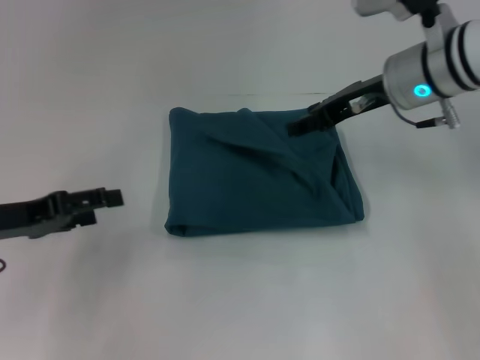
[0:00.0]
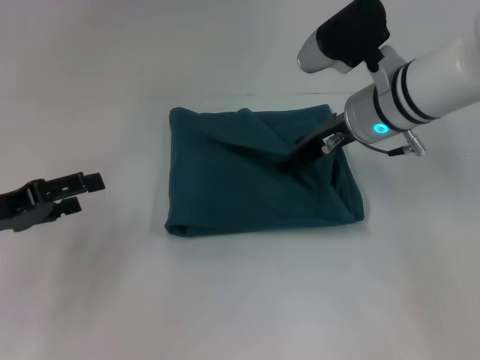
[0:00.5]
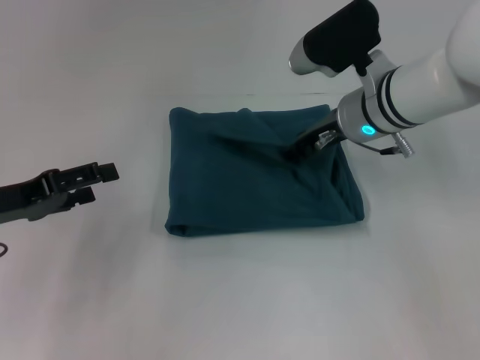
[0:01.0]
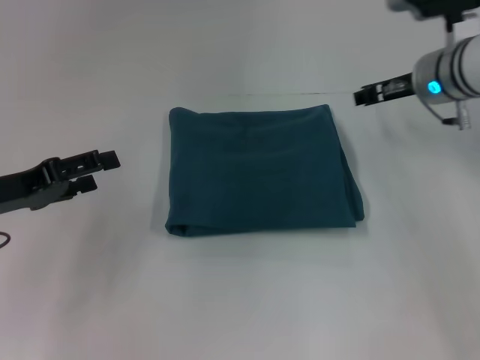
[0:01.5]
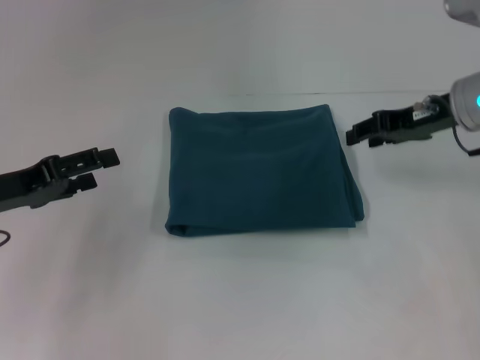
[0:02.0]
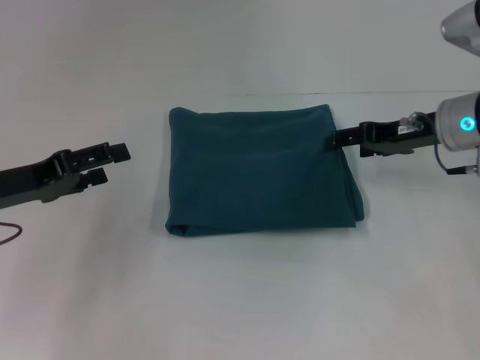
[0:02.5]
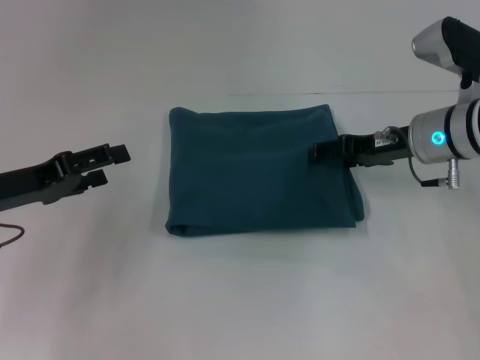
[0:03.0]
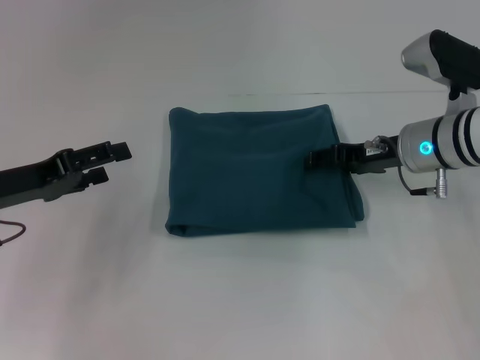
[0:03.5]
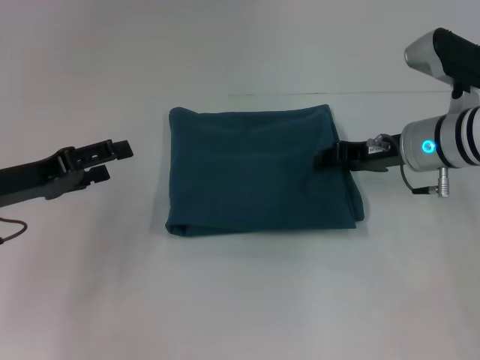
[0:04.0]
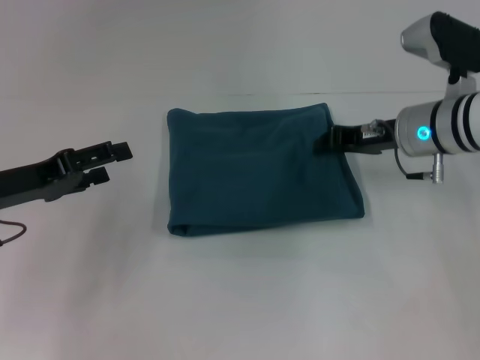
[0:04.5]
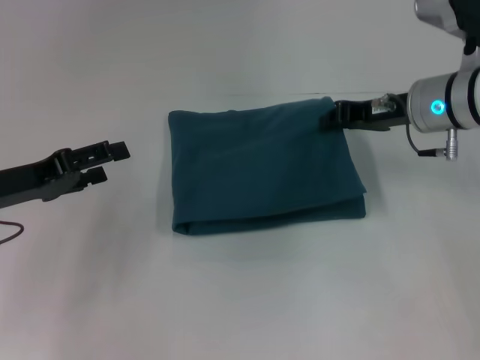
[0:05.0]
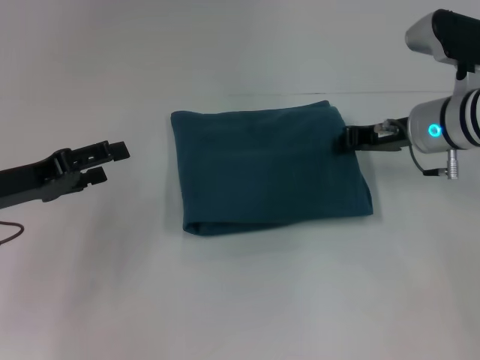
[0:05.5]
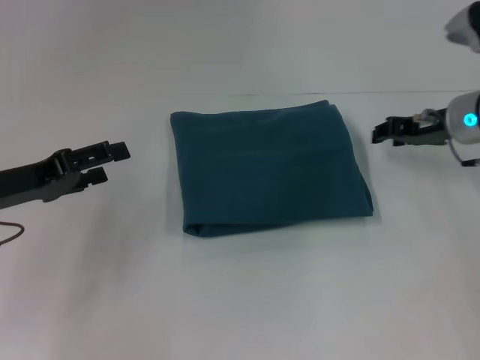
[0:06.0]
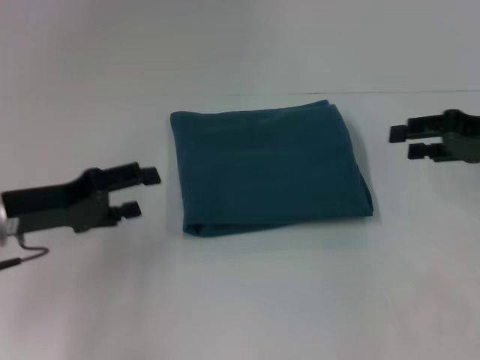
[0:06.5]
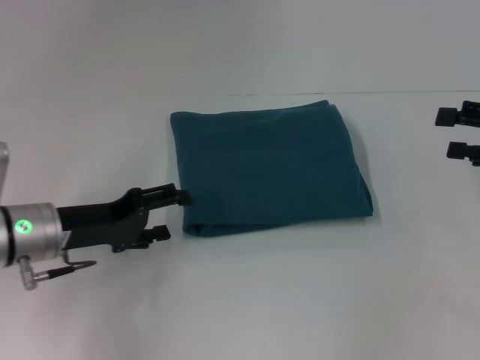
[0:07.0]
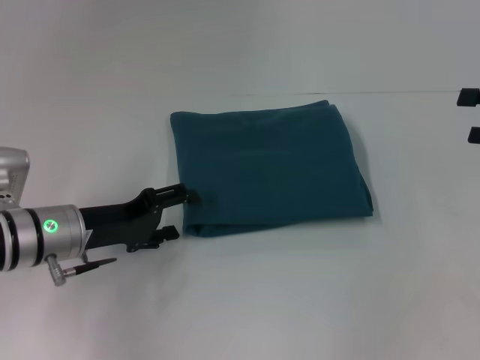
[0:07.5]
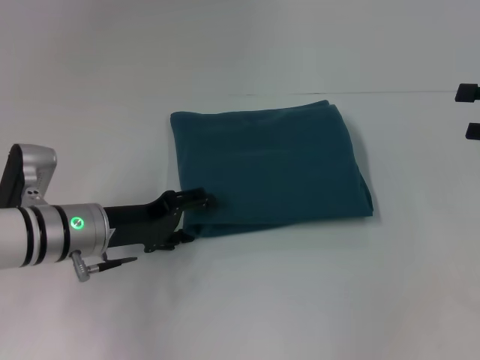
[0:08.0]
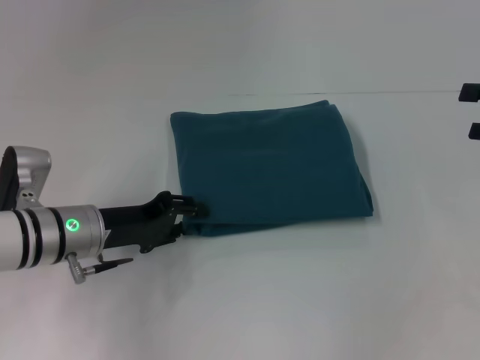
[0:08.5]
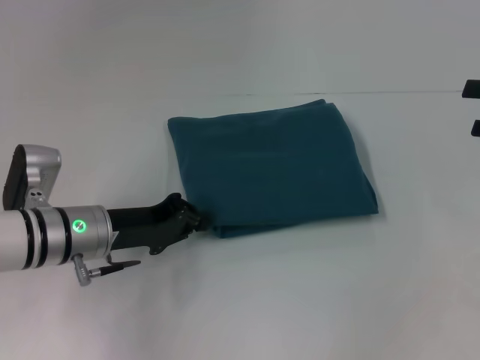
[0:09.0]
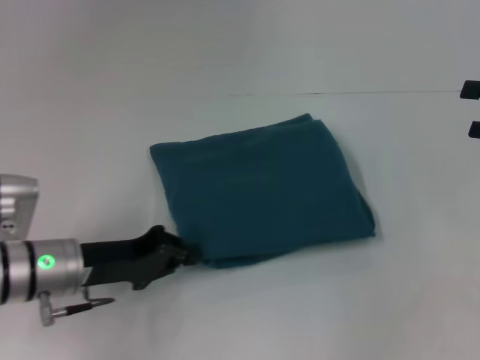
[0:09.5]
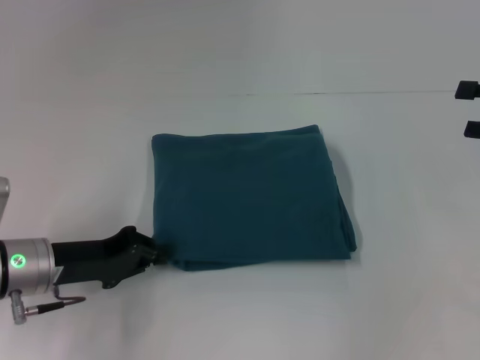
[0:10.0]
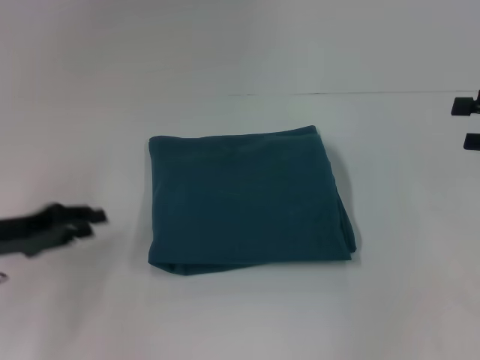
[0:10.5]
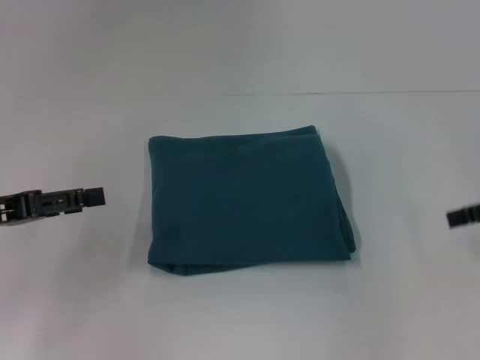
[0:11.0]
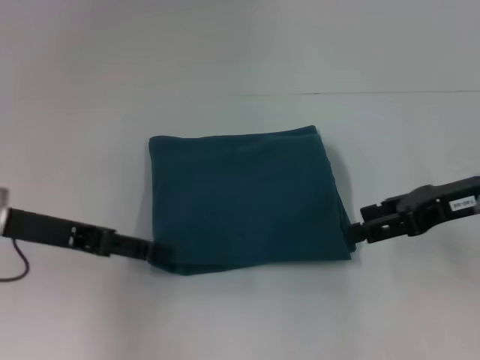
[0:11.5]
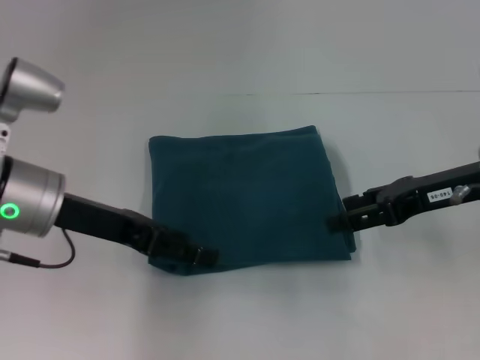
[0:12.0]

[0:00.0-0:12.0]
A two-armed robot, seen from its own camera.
0:00.0 to 0:02.0: The right gripper goes approximately 5 cm to the right.
0:02.0 to 0:04.0: The right gripper goes roughly 5 cm downward, and opens, then closes again.
0:04.0 to 0:06.0: The right gripper moves about 5 cm.
0:06.0 to 0:08.0: The left gripper goes roughly 10 cm to the right and downward. Meanwhile the right gripper goes about 15 cm to the right and backward, and opens up.
0:08.0 to 0:10.0: The left gripper ends up roughly 5 cm from where it was, and closes its fingers.
0:10.0 to 0:12.0: The right gripper travels to the left by some 15 cm, while the left gripper heads upward, covering about 10 cm, travels to the left and back again, roughly 10 cm each way, and opens up.

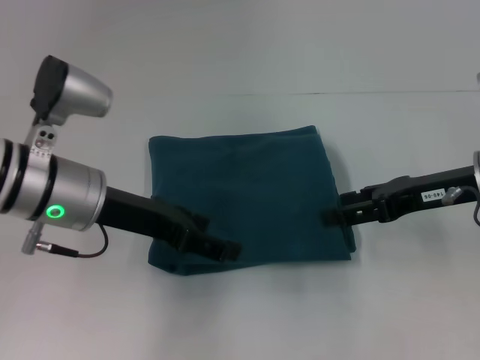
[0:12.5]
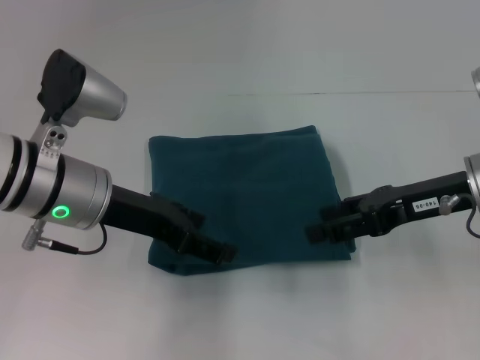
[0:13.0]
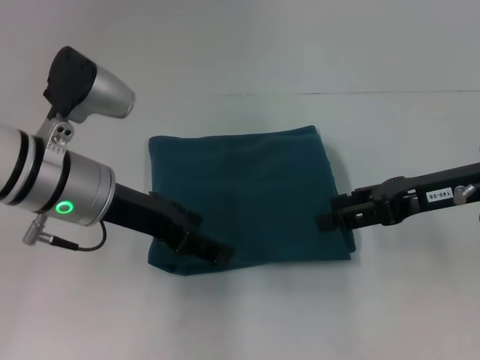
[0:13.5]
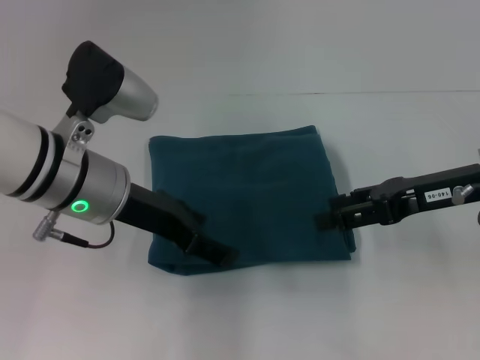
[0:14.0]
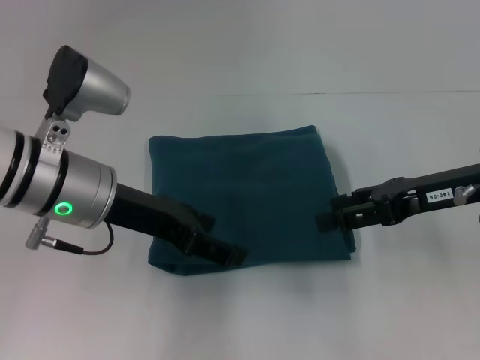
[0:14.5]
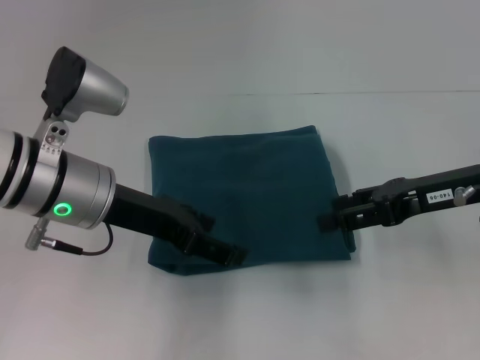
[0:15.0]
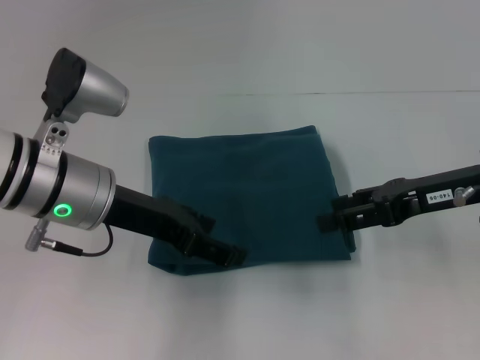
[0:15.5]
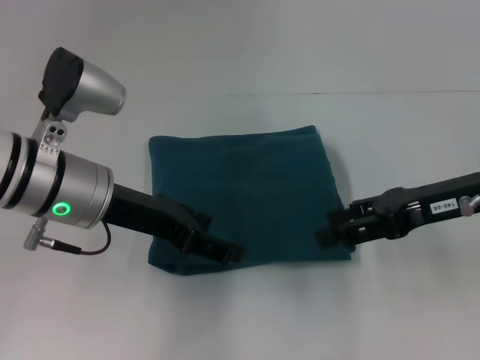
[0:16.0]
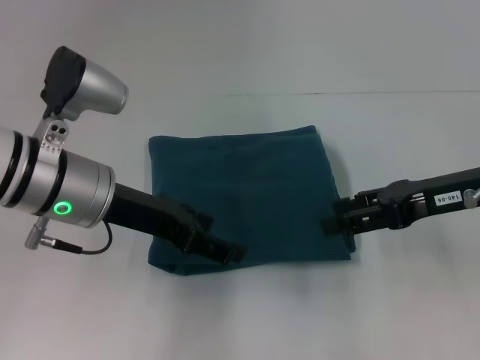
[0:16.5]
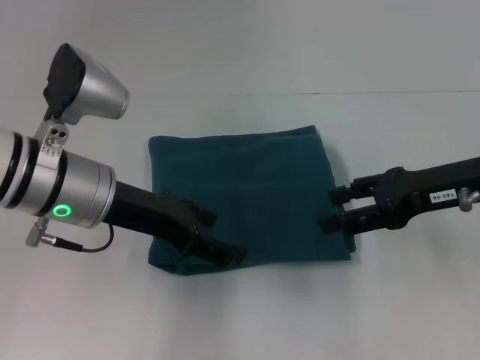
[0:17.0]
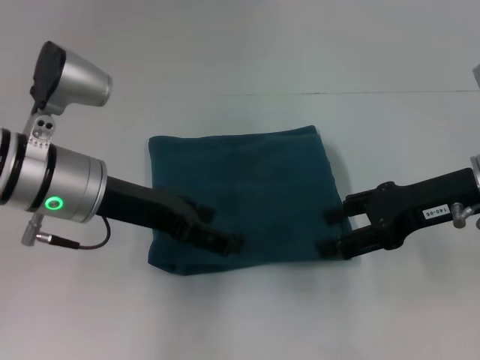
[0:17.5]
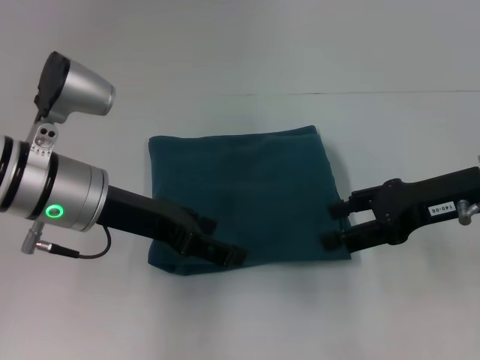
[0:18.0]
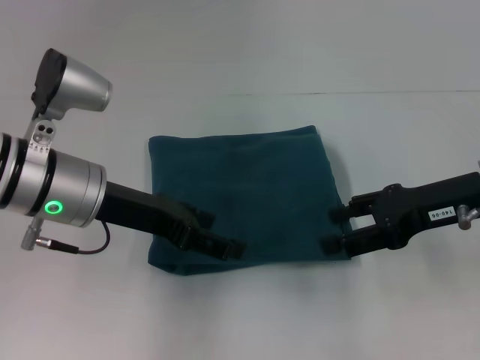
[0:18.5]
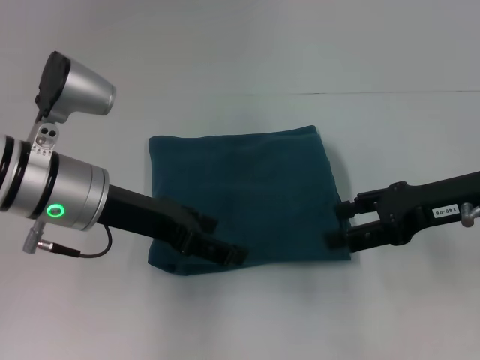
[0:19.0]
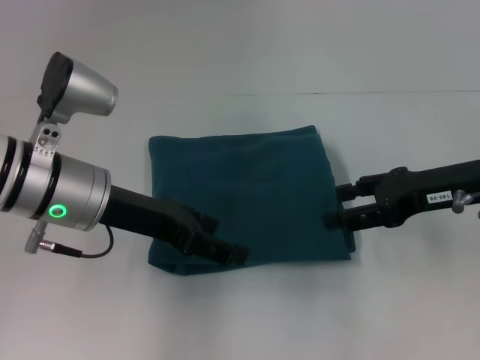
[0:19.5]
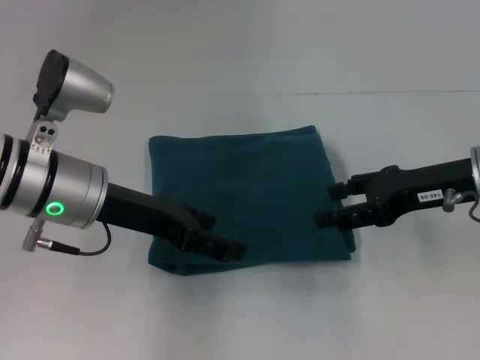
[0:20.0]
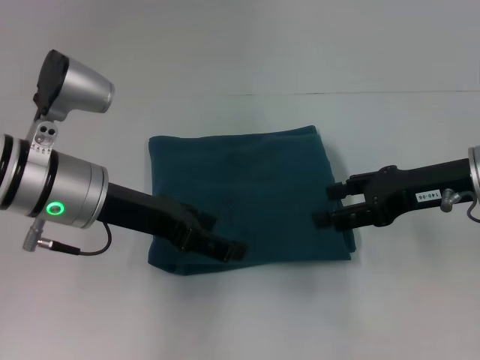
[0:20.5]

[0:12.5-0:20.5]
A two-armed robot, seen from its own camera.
0:12.5 to 0:14.5: There are only small adjustments of the grippers.
0:14.5 to 0:16.5: The two grippers keep their place.
0:16.5 to 0:20.5: The grippers make only small movements.

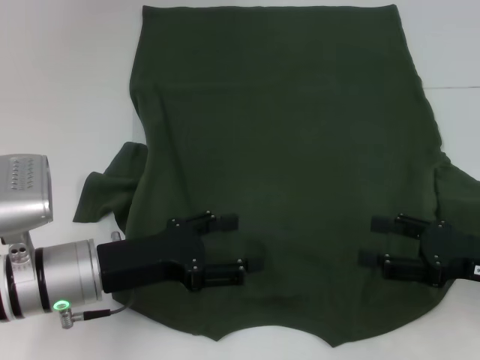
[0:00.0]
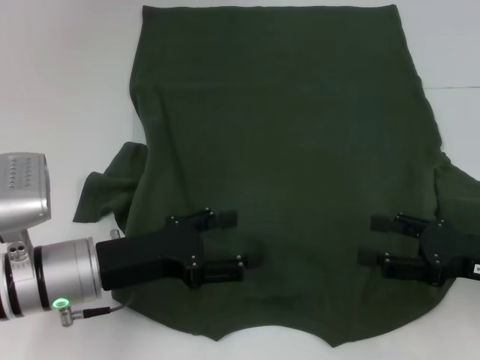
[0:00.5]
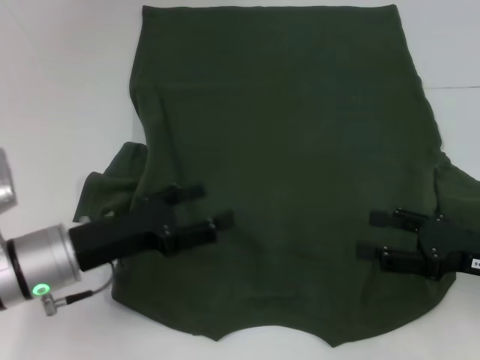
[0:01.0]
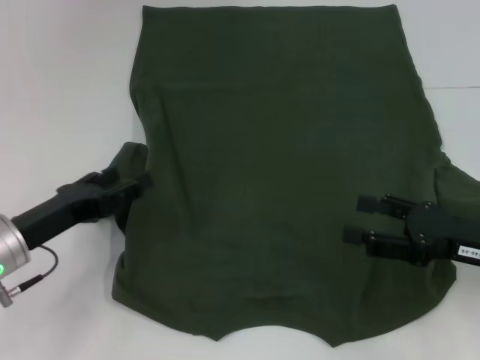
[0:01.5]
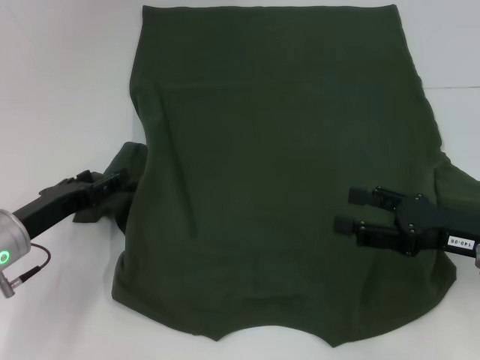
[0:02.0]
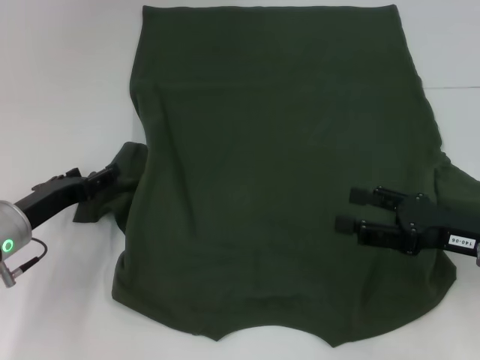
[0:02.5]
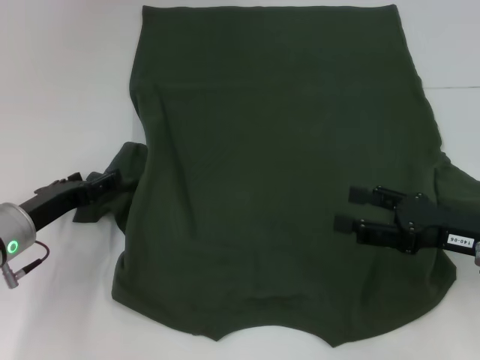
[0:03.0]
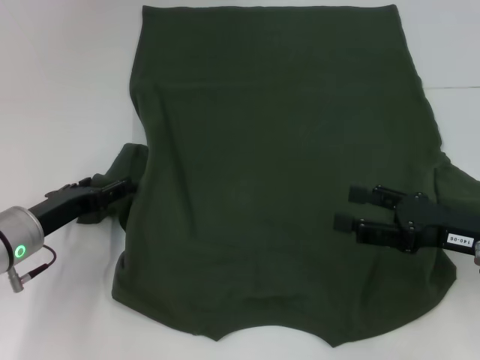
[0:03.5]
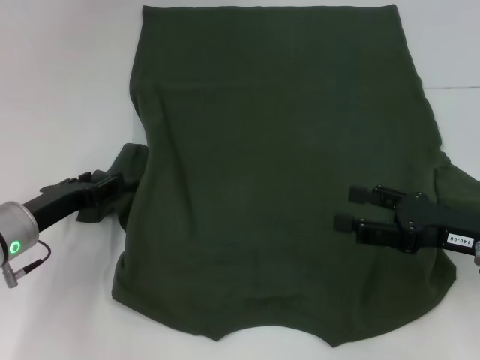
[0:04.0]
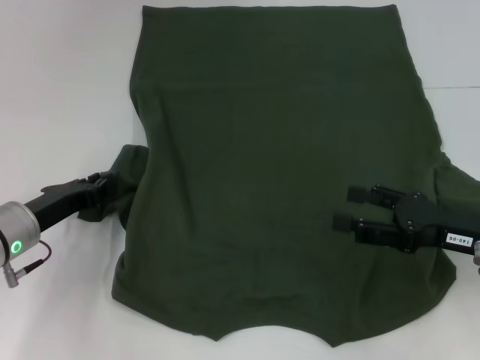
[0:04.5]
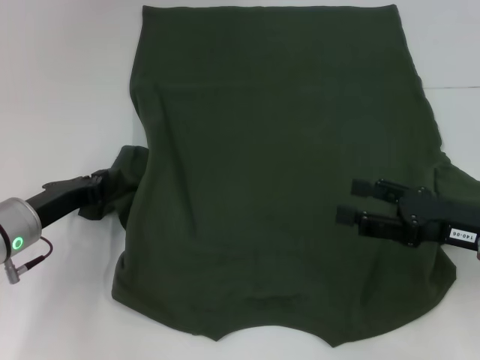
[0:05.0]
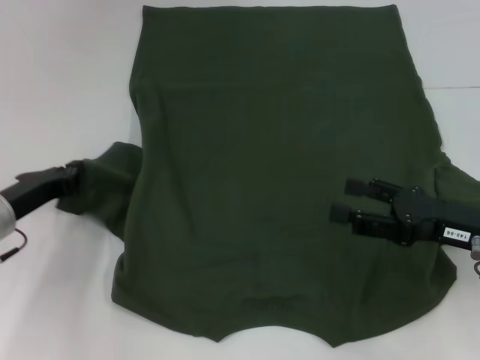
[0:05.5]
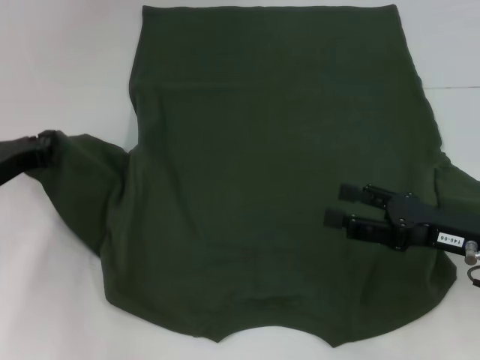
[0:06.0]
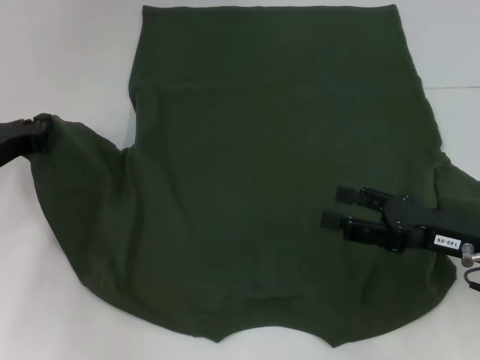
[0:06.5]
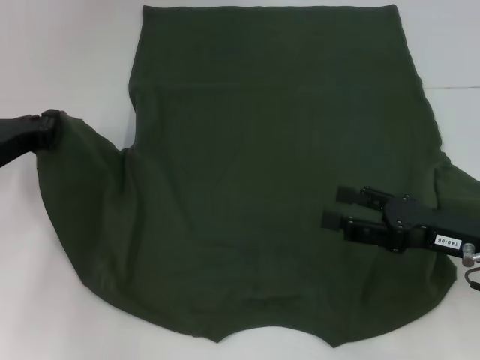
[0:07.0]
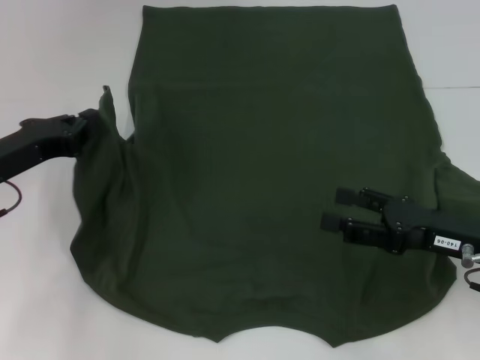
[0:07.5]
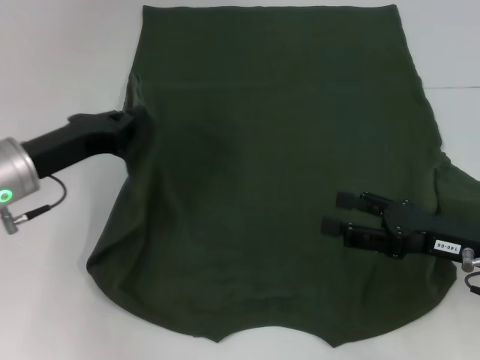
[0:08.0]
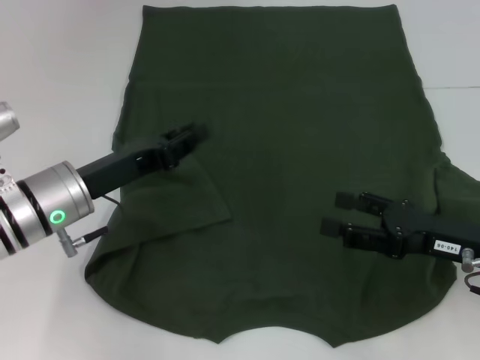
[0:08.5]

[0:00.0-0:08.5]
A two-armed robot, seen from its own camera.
Step, 0:00.0 to 0:08.0: Fold the bottom left sleeve with your left hand.
0:00.0 to 0:02.0: The left gripper is displaced to the left by some 10 cm.
0:02.0 to 0:04.0: The grippers make only small movements.
0:04.0 to 0:06.5: The left gripper travels upward by about 5 cm, and closes its fingers.
0:06.5 to 0:08.5: The left gripper goes roughly 10 cm to the right.
